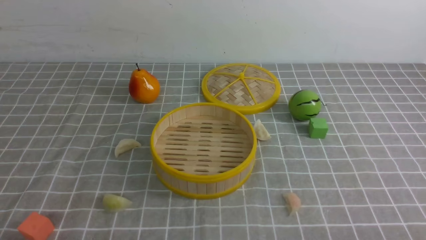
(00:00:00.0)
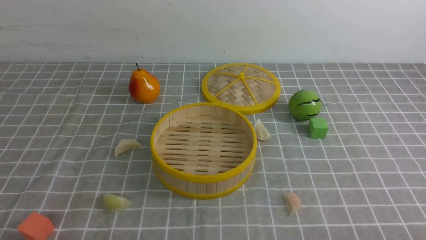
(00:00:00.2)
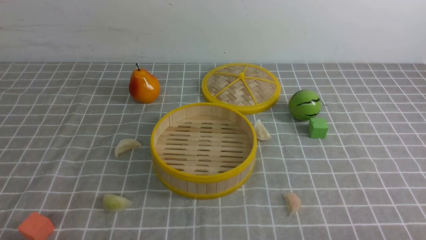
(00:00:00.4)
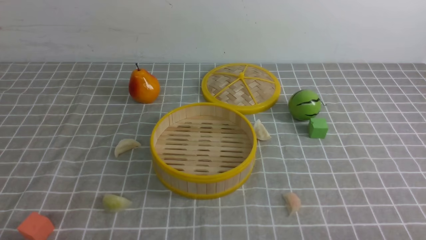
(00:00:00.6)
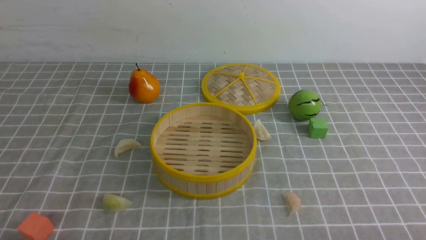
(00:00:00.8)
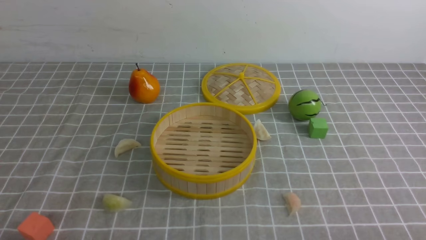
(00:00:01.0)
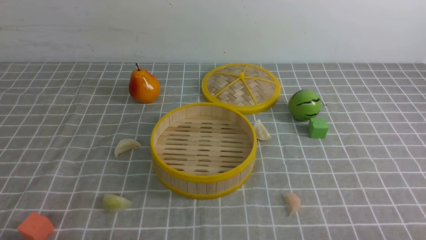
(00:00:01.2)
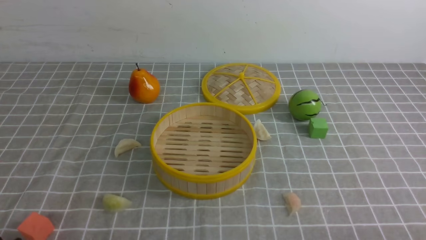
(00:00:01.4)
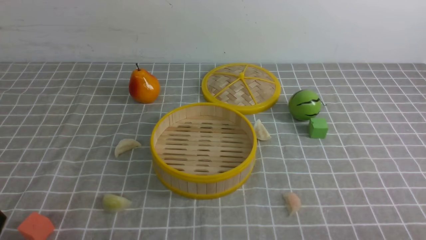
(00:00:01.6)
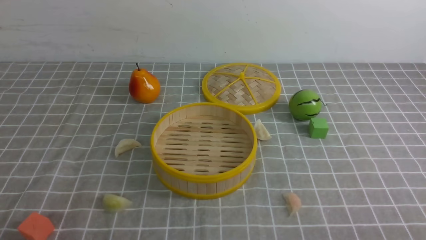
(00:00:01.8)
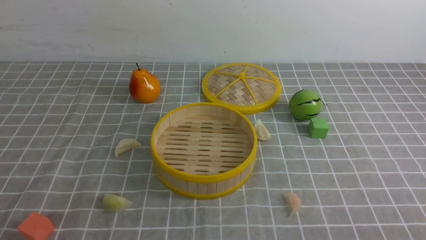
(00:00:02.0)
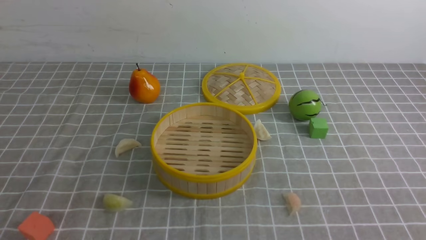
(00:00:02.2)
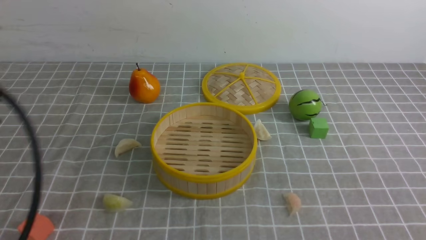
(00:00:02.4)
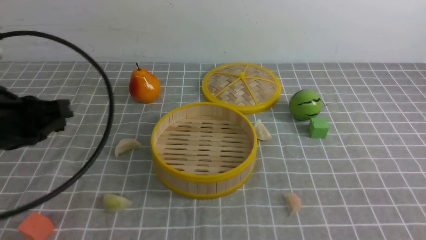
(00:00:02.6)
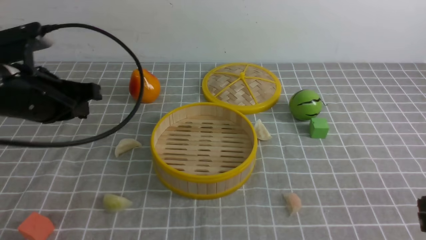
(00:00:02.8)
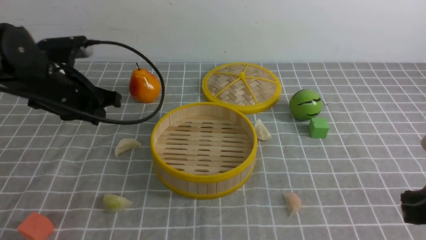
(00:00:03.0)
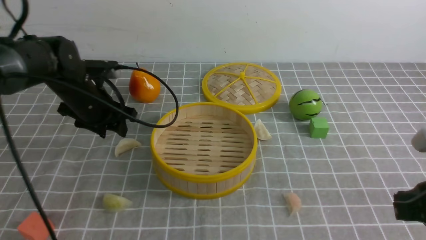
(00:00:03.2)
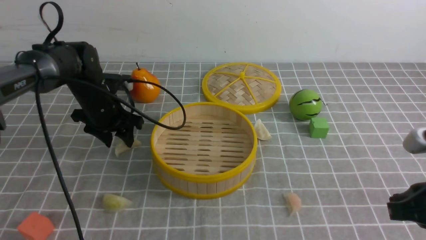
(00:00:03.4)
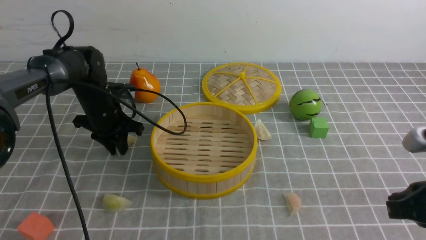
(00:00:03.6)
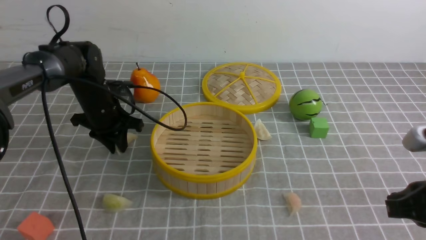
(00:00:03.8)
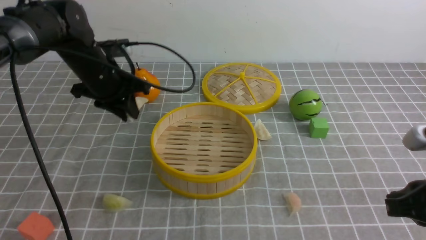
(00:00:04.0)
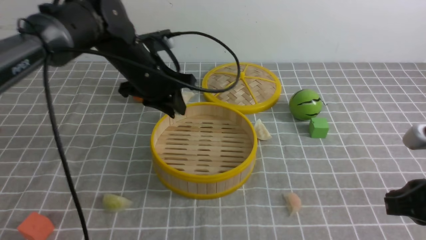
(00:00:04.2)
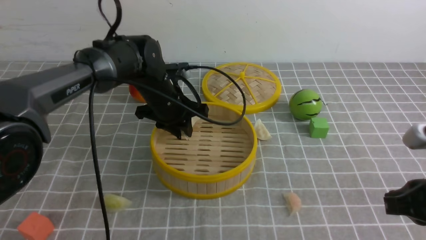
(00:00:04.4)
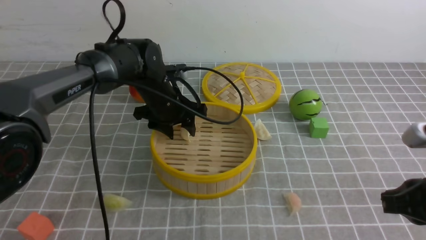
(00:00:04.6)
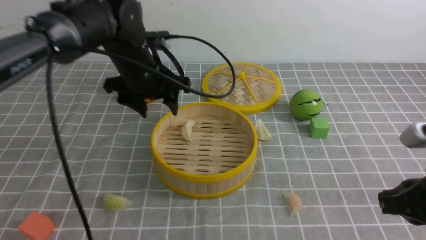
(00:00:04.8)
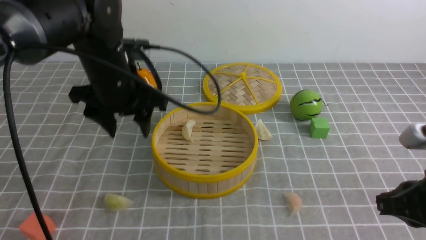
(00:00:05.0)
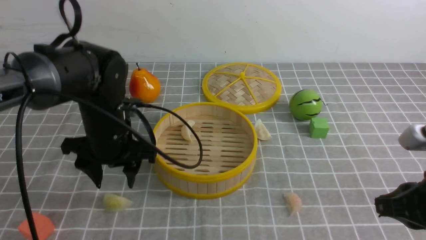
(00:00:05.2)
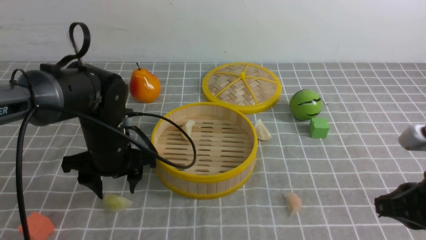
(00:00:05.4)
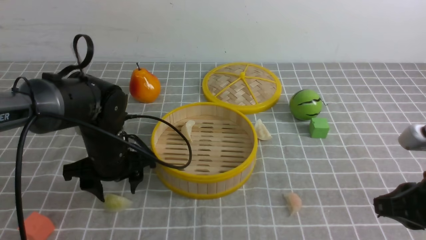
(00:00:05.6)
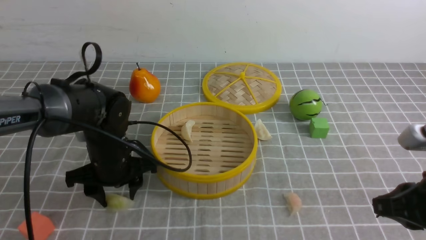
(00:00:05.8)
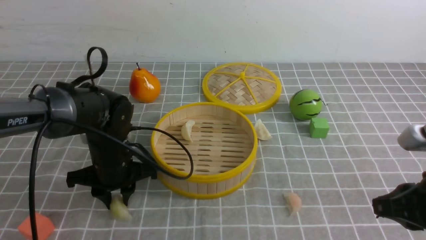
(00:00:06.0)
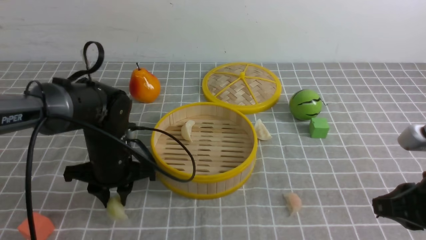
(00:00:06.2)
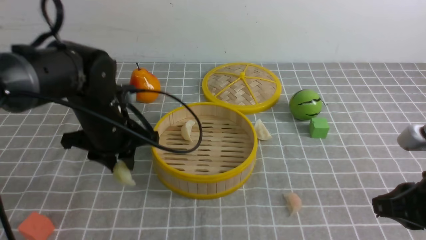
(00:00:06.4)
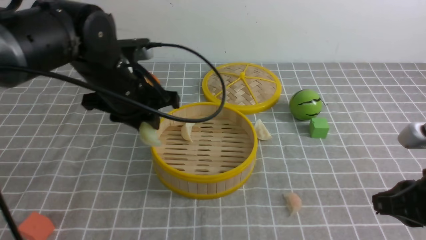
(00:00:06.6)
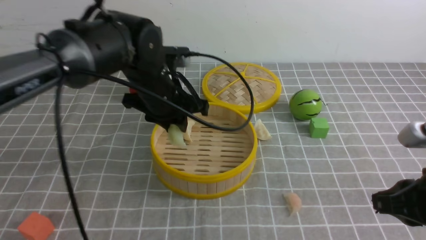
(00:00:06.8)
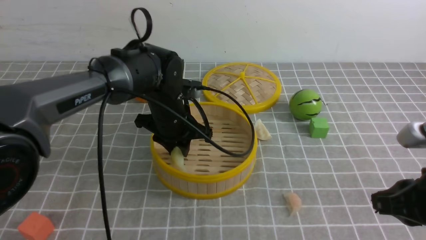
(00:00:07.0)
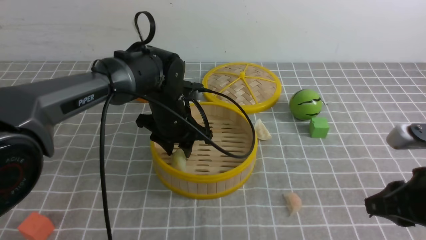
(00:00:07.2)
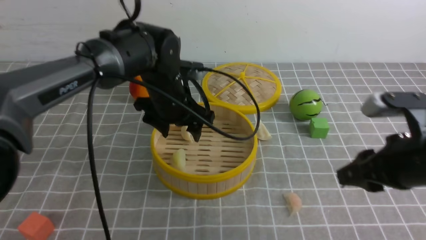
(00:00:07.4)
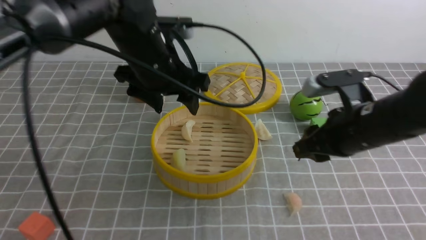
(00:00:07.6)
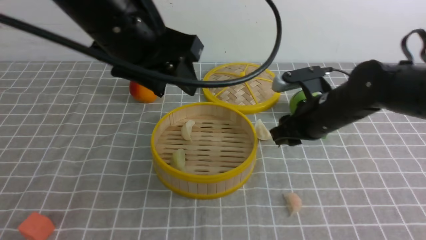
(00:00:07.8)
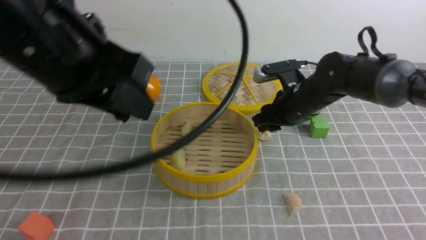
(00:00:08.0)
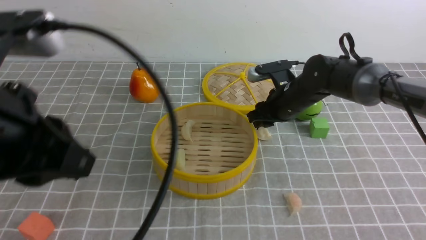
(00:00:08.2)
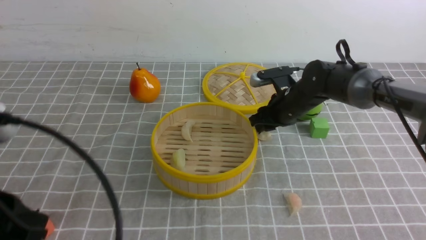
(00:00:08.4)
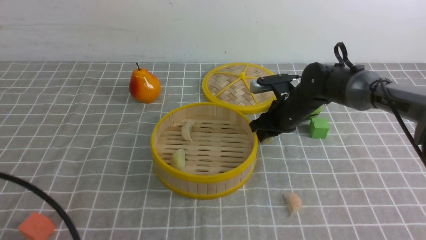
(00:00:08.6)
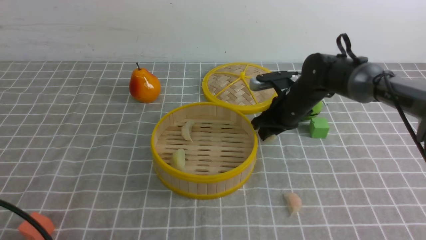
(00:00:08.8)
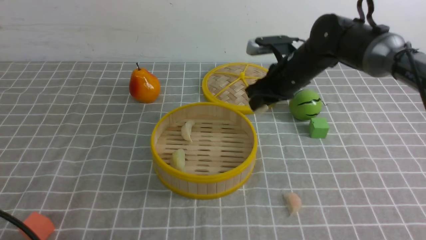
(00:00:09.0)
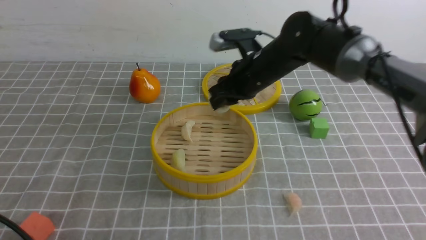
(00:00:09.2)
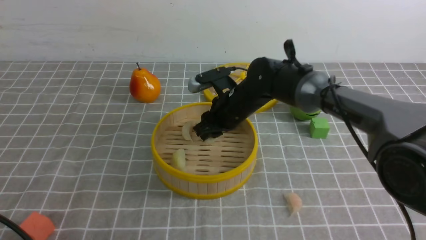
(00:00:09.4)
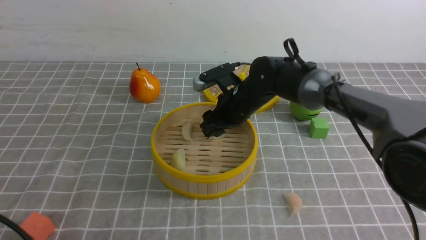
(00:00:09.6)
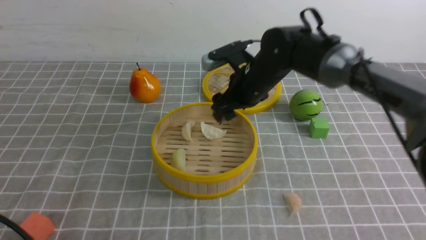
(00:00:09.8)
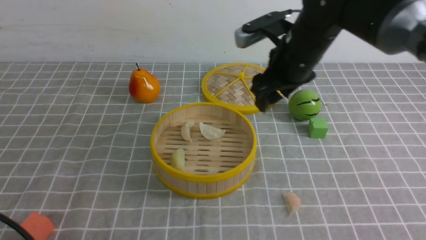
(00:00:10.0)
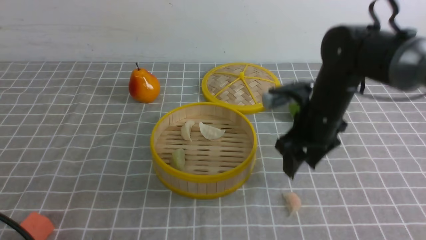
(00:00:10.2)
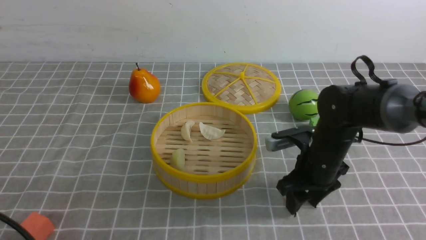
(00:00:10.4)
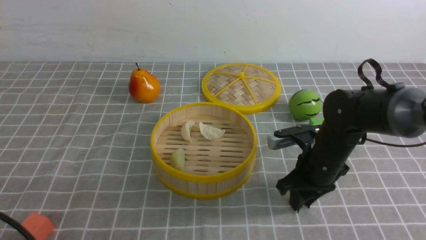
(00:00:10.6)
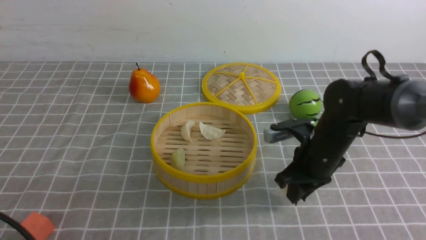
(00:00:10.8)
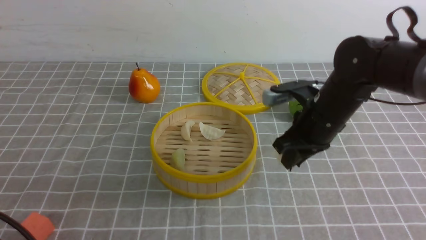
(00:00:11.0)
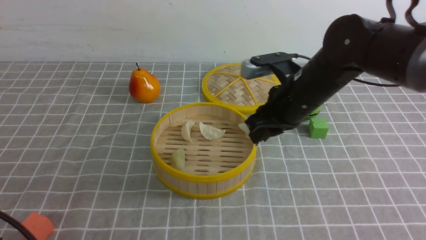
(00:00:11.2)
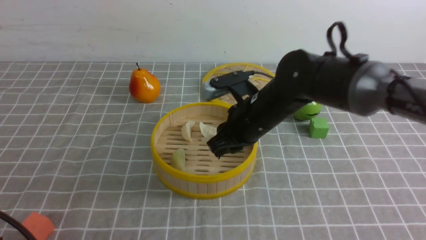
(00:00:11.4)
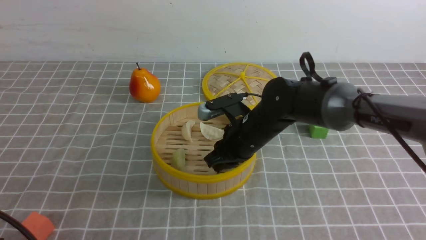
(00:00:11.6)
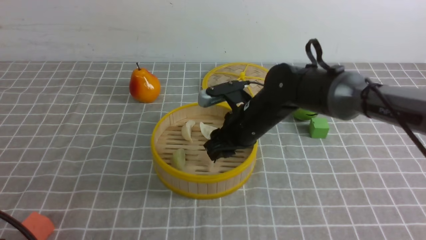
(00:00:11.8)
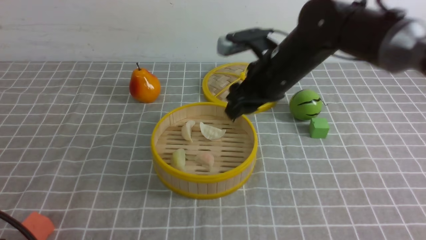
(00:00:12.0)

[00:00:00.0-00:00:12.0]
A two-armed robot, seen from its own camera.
Task of the whole recording: put the dumplings into the steamer on the table with the grey tablecloth.
Step, 00:00:00.0 to 00:00:03.8: use the left arm to grab a dumpling.
Step, 00:00:04.0 to 00:00:04.6: use the left arm to put the dumpling into the steamer.
Step, 00:00:04.8 to 00:00:06.2: use the left arm to grab a dumpling.
Step, 00:00:06.4 to 00:00:07.2: use the left arm to put the dumpling into the steamer.
Step, 00:00:07.4 to 00:00:08.8: use the right arm to grab a dumpling.
Step, 00:00:09.0 to 00:00:09.6: use the right arm to put the dumpling into the steamer.
Step, 00:00:10.0 to 00:00:10.8: use the right arm to grab a dumpling.
Step, 00:00:11.2 to 00:00:11.8: use the right arm to put the dumpling into the steamer.
00:00:01.6 to 00:00:03.0: The left gripper goes roughly 30 cm forward, and closes and opens again. The right gripper moves forward and upward, some 15 cm, and closes.
00:00:03.0 to 00:00:04.4: The left gripper moves to the right and forward, some 15 cm.
00:00:04.4 to 00:00:06.0: The left gripper is displaced backward, to the left and downward by approximately 15 cm, and opens, then closes once more.
00:00:06.0 to 00:00:07.6: The left gripper goes up and down, about 20 cm each way, reversing 2 times, and opens its fingers, while the right gripper travels forward and to the left by roughly 15 cm, and opens.
00:00:07.6 to 00:00:09.0: The left gripper shifts roughly 30 cm backward and to the left, and closes its fingers, while the right gripper heads forward and to the left, covering roughly 15 cm.
00:00:09.0 to 00:00:10.4: The right gripper moves backward and downward, some 10 cm.
00:00:10.4 to 00:00:12.0: The right gripper swings up and down, roughly 15 cm each way, with 2 reversals, and closes, then reopens.

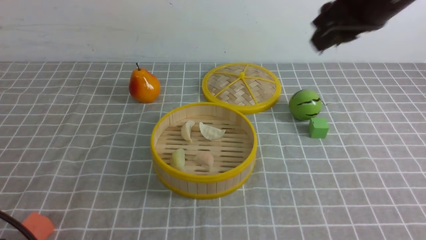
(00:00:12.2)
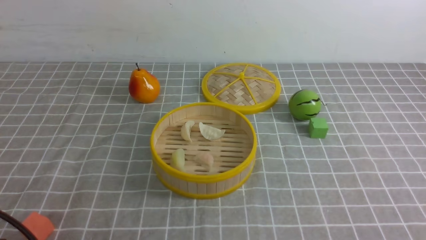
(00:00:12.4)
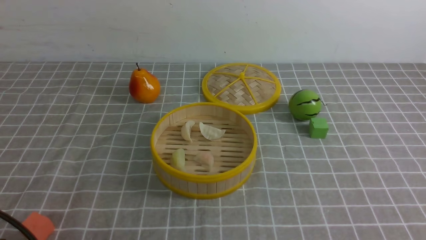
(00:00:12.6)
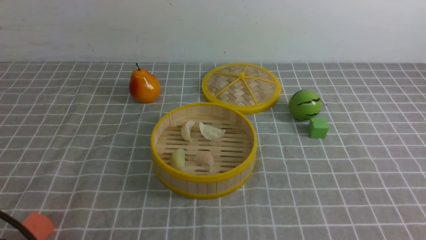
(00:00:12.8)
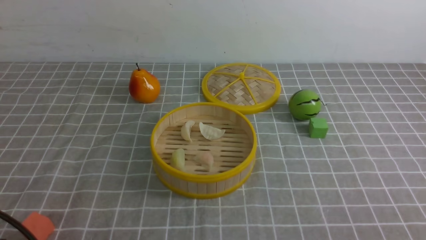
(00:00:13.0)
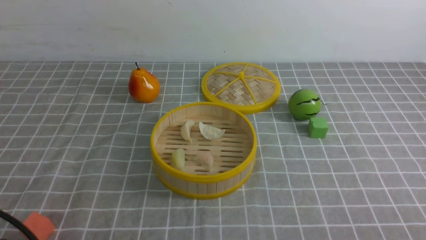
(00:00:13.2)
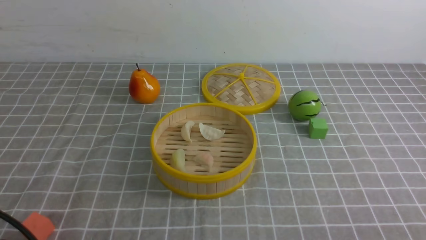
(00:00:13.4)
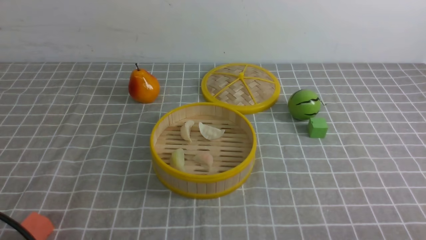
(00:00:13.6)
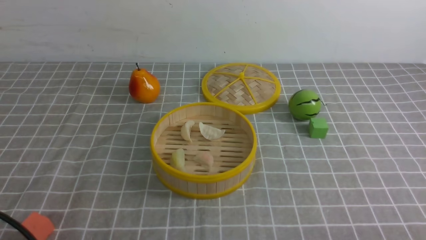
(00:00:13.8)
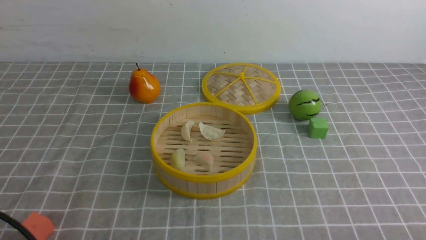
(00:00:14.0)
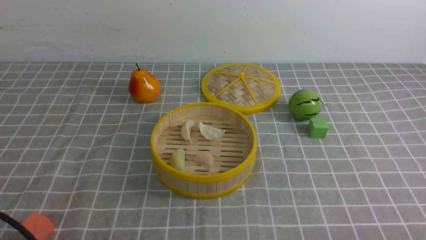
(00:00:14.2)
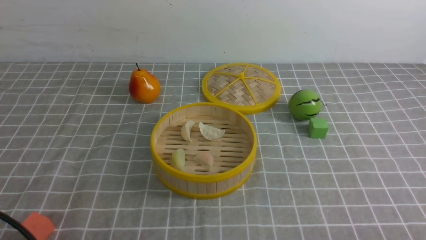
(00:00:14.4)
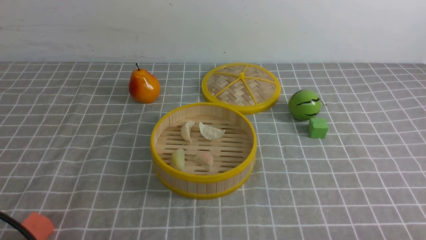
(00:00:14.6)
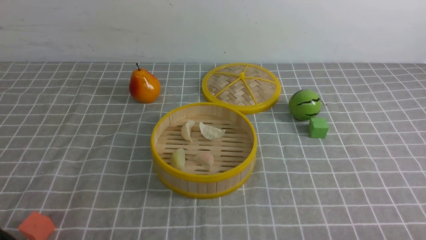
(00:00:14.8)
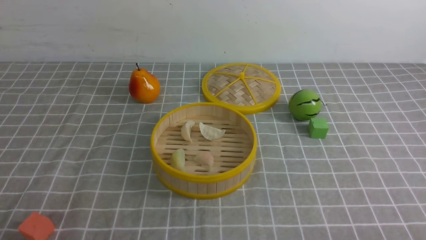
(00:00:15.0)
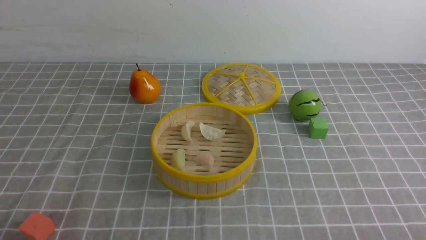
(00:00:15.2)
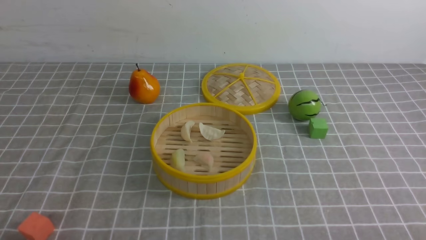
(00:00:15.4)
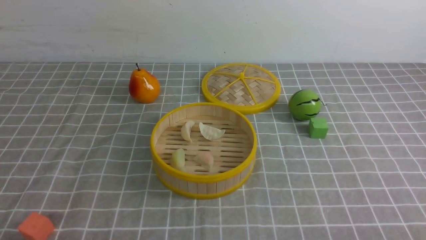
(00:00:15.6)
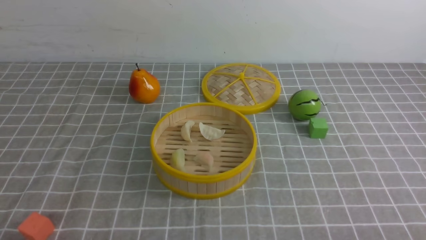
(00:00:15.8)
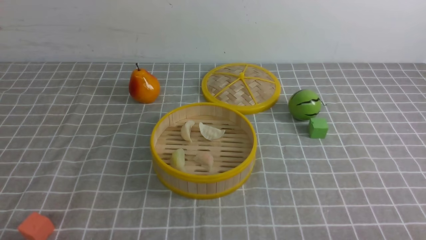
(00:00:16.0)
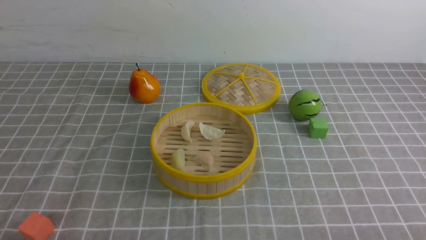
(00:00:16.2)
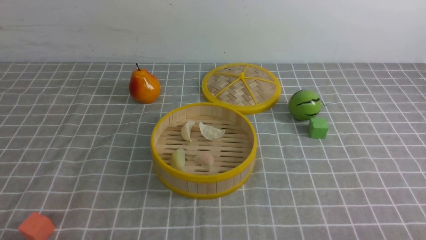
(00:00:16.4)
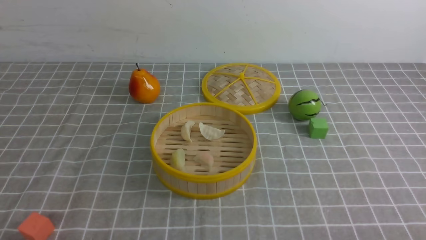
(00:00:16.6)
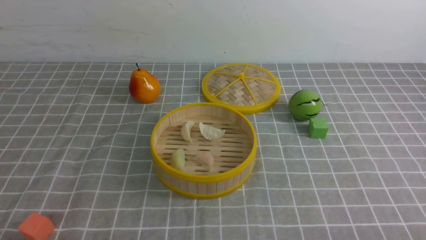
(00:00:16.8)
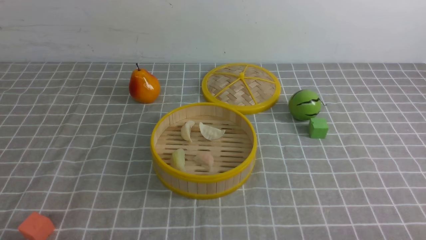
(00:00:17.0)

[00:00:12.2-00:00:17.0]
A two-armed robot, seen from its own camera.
Task of the whole recording: put the dumplings into the steamer on the table with the grey tablecloth.
00:00:12.2 to 00:00:13.8: The right gripper is displaced downward, backward and to the right by roughly 40 cm, and closes.
